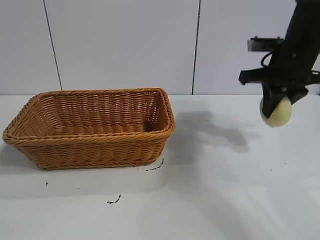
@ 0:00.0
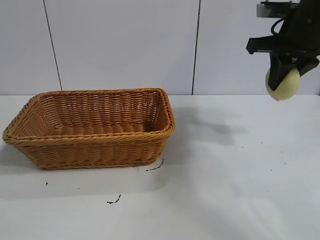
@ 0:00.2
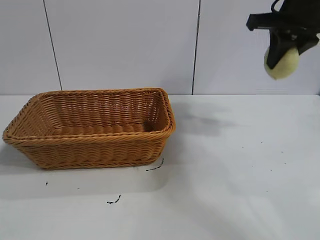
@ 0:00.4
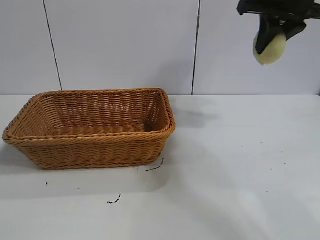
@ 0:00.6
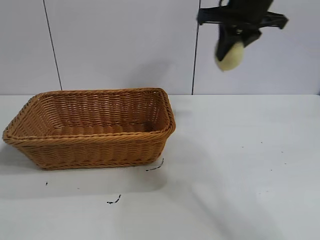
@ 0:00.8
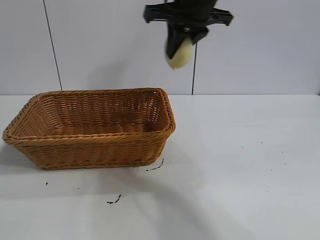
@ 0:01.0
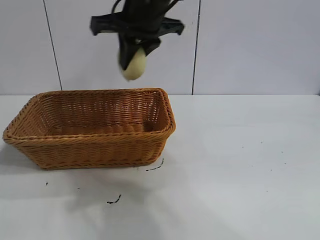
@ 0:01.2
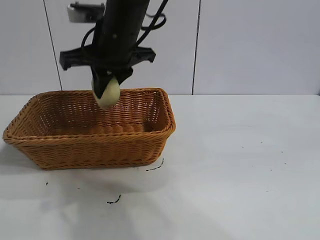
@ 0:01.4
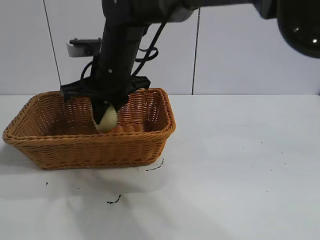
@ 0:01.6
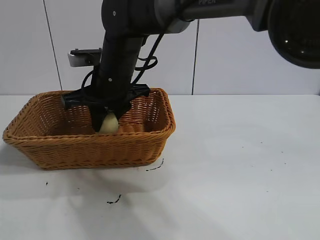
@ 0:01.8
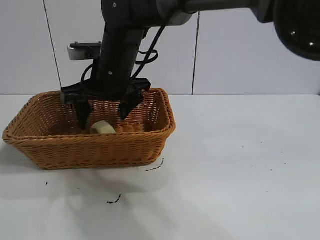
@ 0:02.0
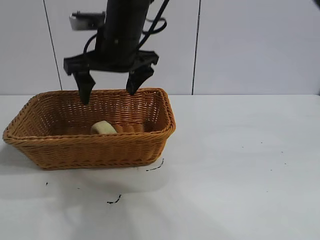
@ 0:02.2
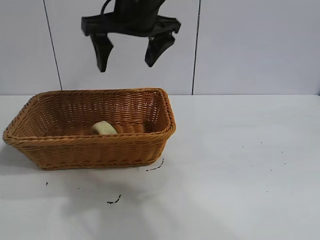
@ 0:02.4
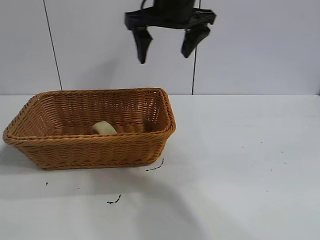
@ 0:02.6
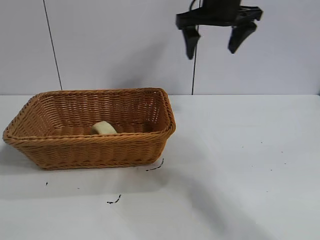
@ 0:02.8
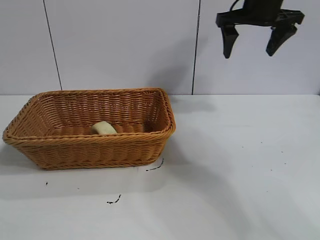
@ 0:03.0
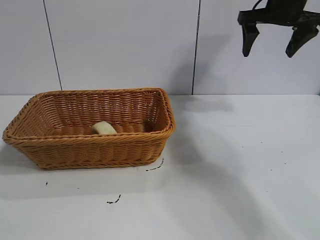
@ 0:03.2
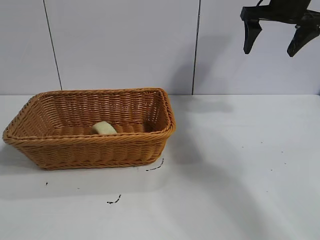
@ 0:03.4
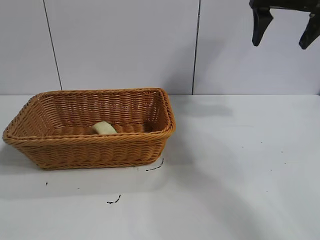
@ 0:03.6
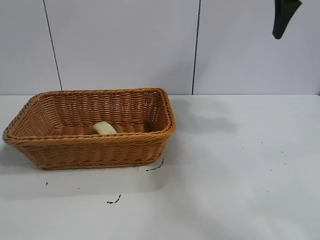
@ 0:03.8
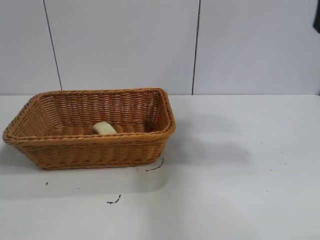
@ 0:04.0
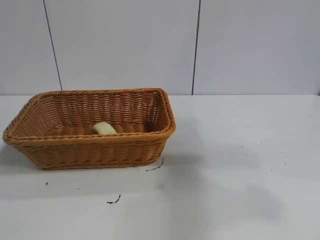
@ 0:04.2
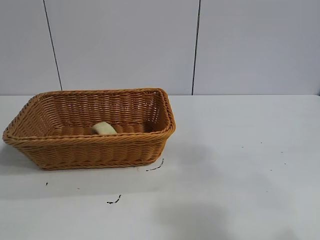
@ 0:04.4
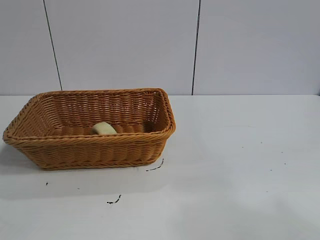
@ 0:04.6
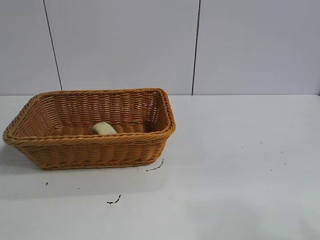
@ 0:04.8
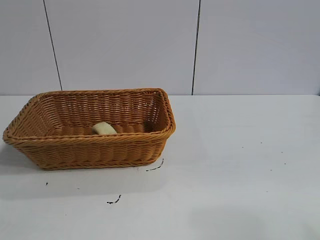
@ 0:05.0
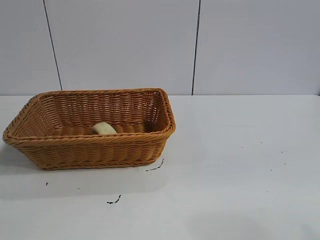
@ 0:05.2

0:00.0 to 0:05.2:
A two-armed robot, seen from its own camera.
Task of the whole recording: pick up the egg yolk pastry and put it into the basket.
Step, 0:00.0 to 0:02.0: Place the egg yolk pastry in the basket with right gripper.
